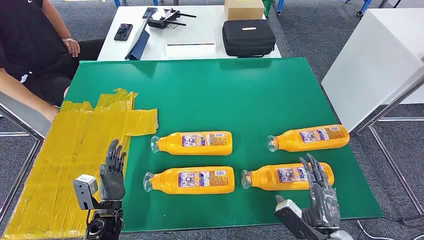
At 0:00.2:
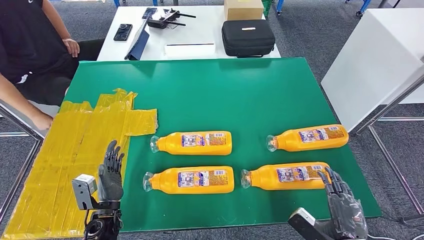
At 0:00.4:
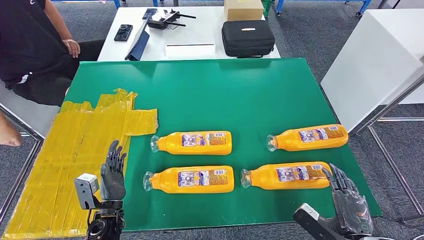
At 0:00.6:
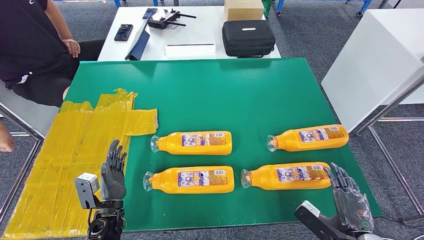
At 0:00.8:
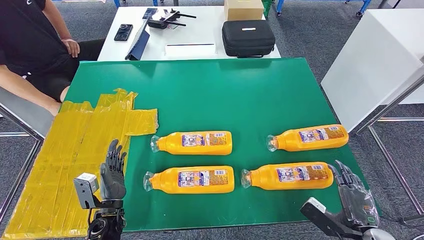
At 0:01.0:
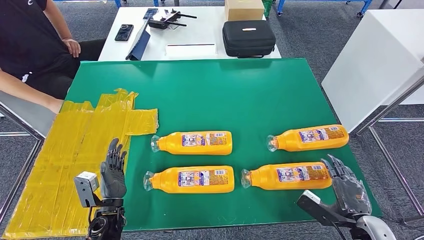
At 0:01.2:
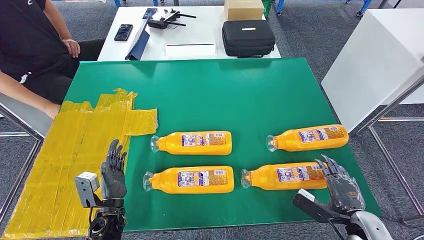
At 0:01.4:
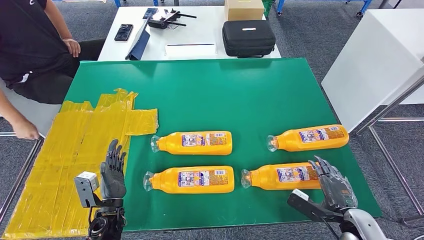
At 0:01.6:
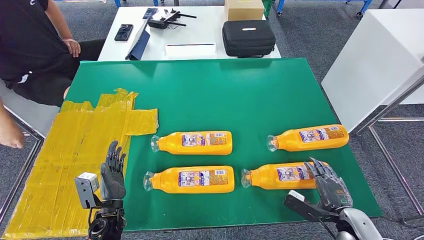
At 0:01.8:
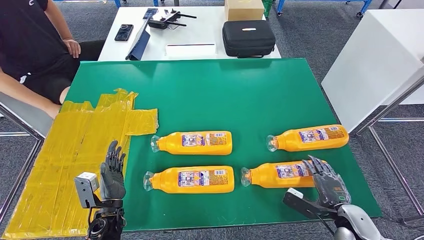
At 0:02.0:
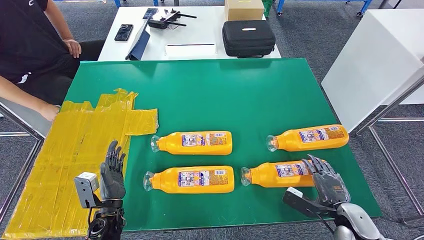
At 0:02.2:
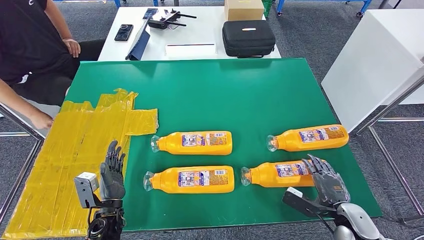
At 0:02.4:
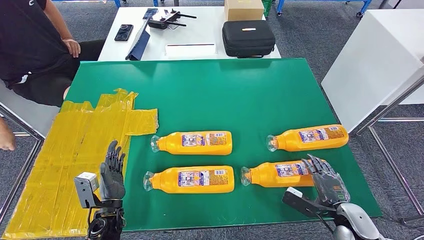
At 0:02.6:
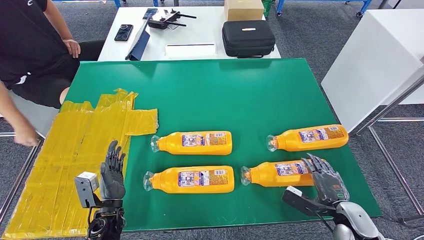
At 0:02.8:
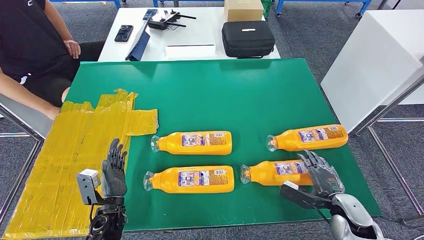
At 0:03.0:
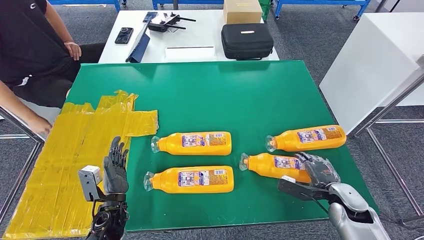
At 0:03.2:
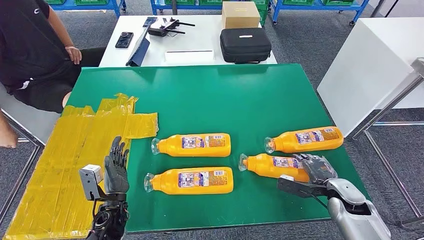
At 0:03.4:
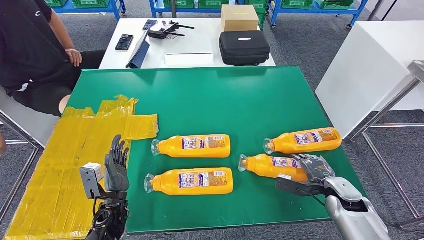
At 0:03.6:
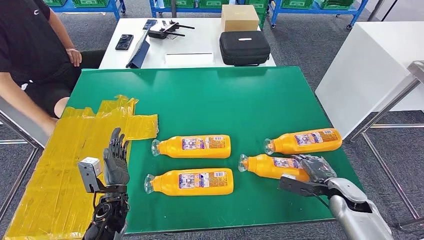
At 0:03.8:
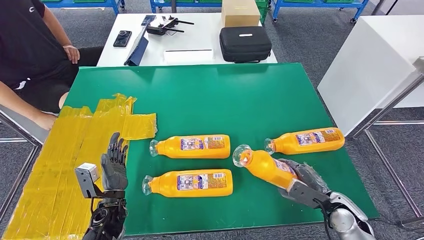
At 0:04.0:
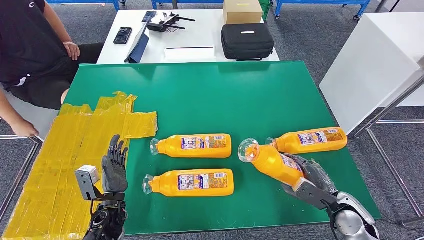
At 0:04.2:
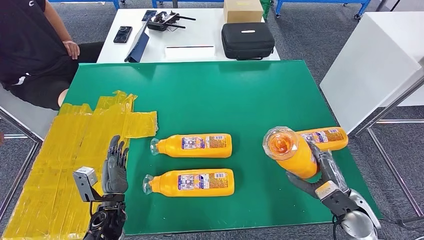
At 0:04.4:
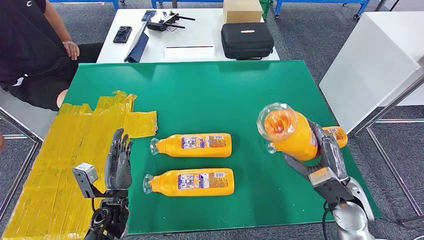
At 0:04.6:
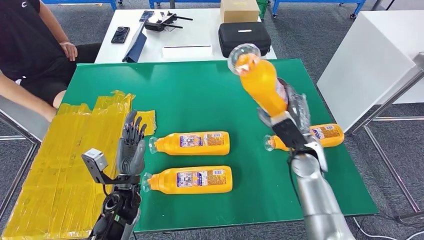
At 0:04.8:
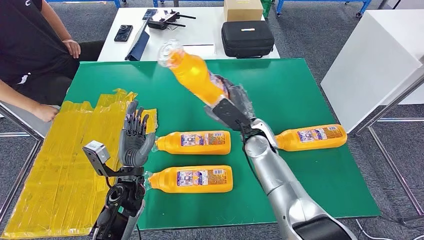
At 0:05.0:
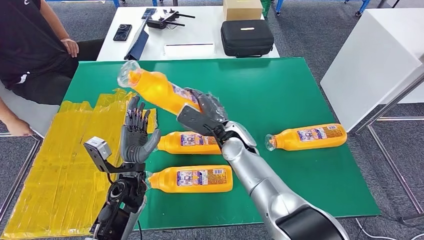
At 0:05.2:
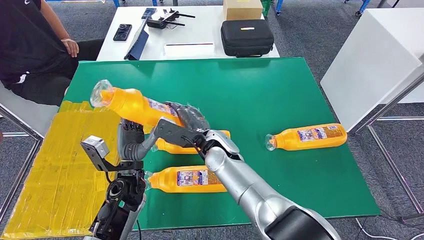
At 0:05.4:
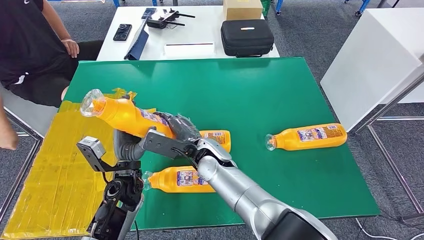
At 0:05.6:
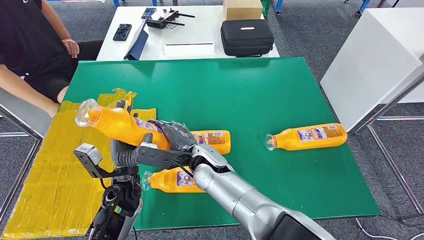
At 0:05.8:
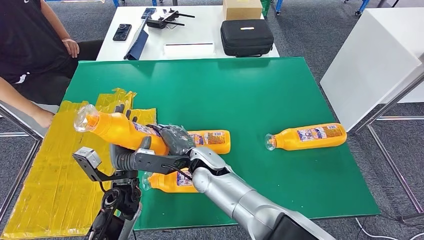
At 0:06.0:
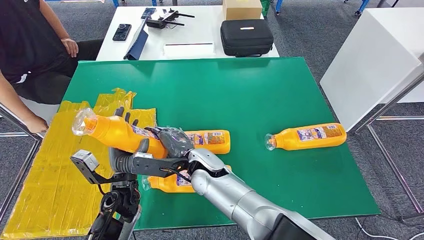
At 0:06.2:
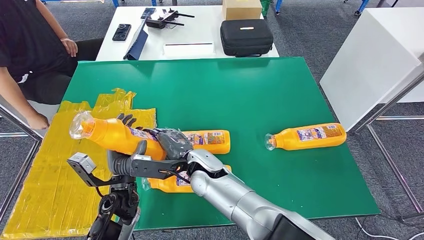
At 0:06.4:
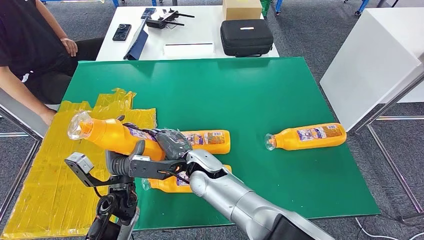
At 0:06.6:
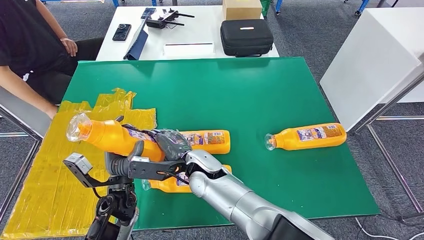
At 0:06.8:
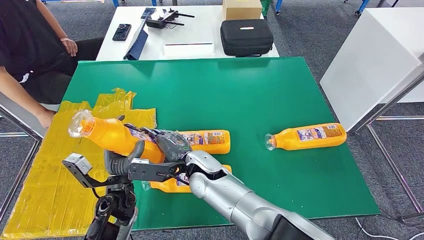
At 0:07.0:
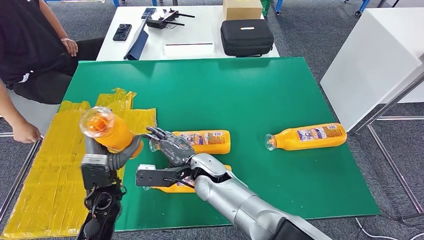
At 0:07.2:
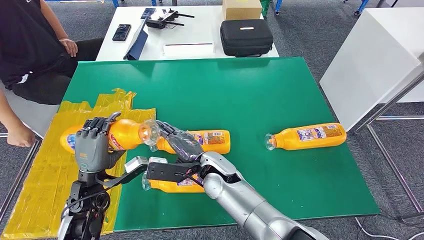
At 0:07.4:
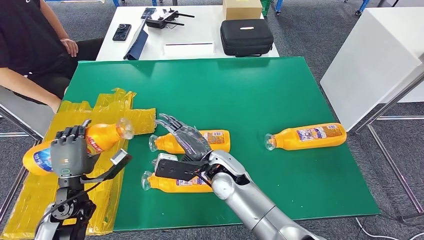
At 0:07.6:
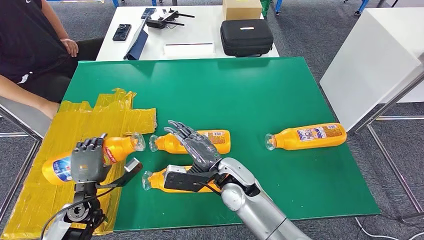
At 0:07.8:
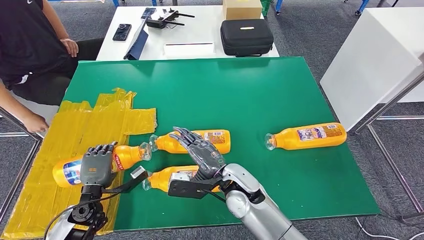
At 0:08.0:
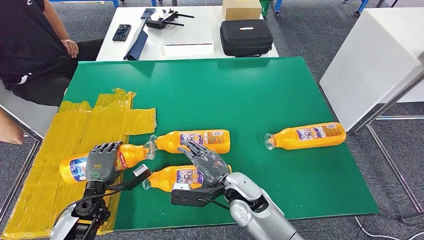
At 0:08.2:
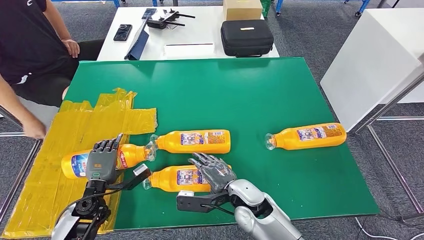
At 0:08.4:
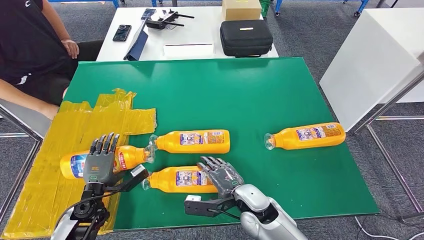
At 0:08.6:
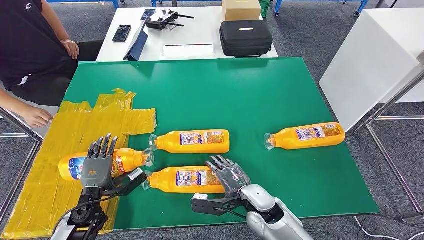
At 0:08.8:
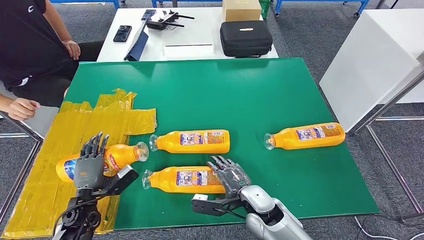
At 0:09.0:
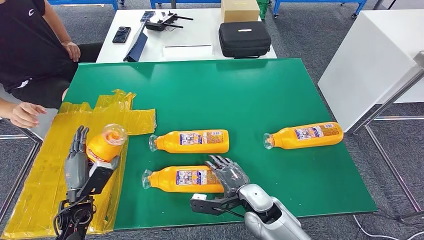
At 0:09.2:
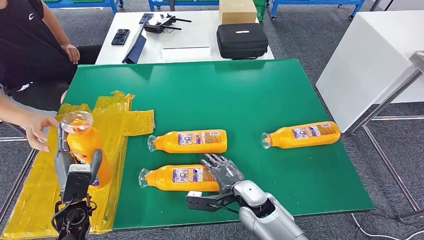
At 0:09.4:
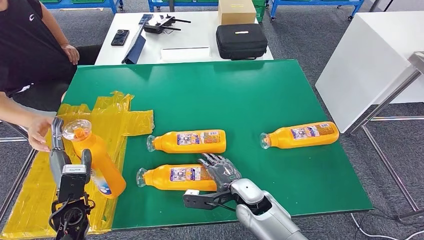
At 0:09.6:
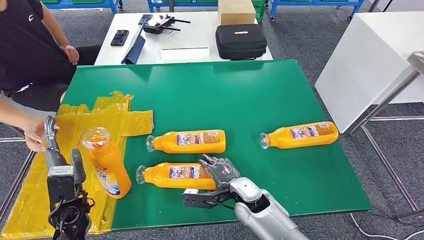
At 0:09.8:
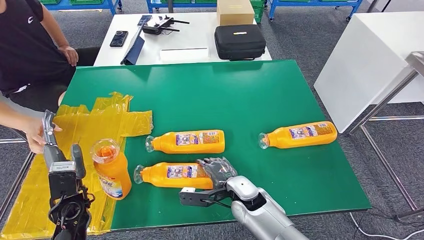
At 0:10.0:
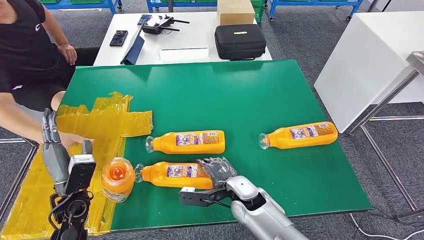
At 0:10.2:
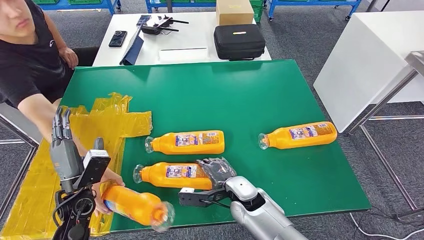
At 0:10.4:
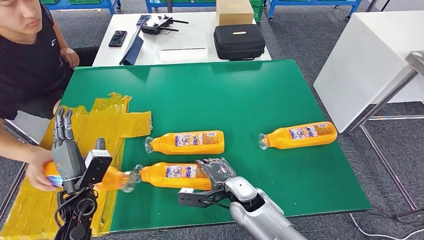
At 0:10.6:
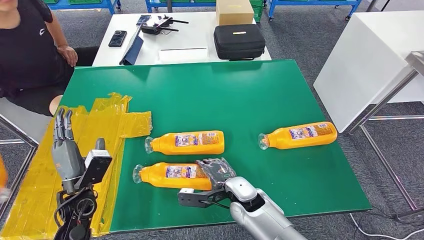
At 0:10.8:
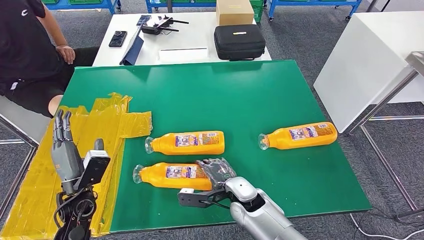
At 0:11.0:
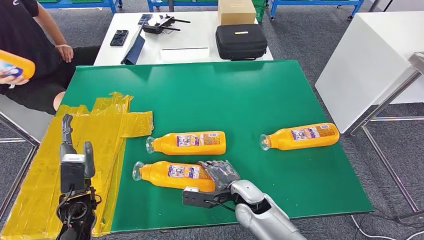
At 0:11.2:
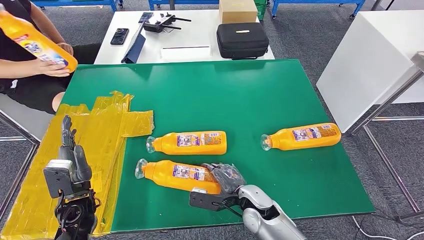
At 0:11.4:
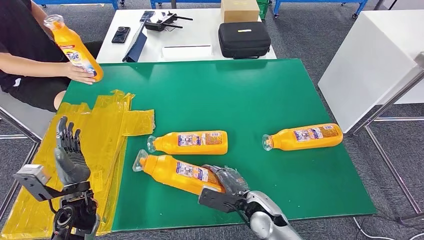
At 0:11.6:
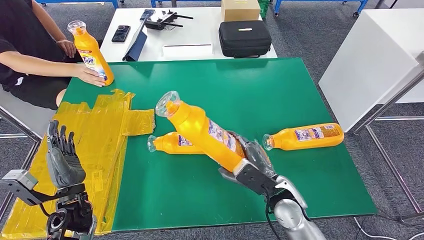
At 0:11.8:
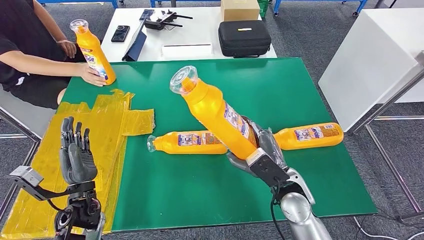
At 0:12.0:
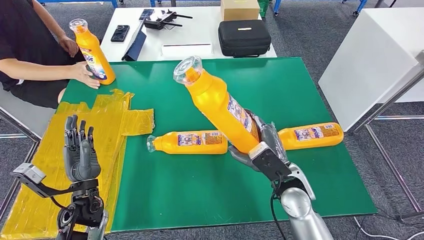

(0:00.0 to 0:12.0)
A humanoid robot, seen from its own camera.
Step, 0:00.0 - 0:05.0: Take the fast-moving consumer goods bottle from the table.
Step, 0:05.2 - 0:11.0: Flip the fast-moving consumer goods bottle to the front side.
0:01.6 - 0:03.0: The right hand goes some 5 cm forward.
0:03.0 - 0:04.4: The right hand heads upward and to the left, covering roughly 15 cm.
0:06.0 - 0:07.6: The right hand shifts roughly 5 cm to the right, while the left hand shifts approximately 10 cm to the left.

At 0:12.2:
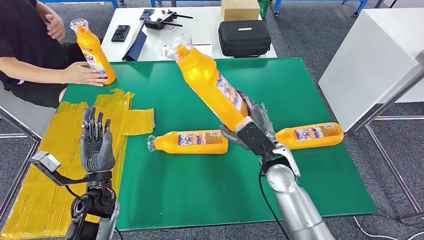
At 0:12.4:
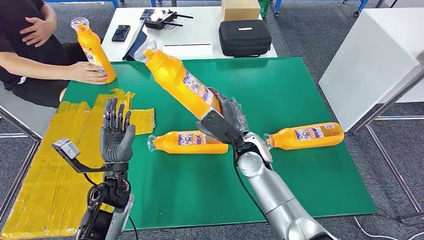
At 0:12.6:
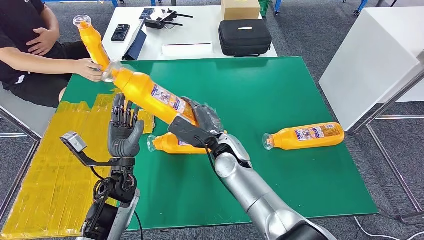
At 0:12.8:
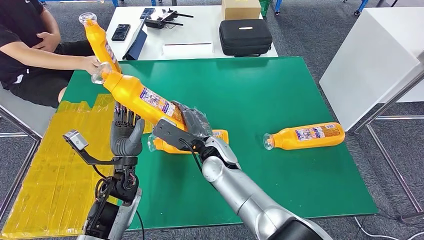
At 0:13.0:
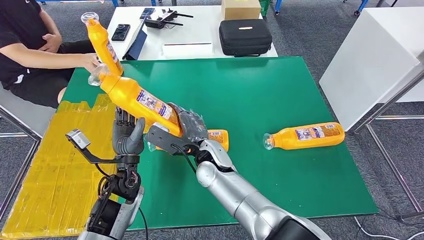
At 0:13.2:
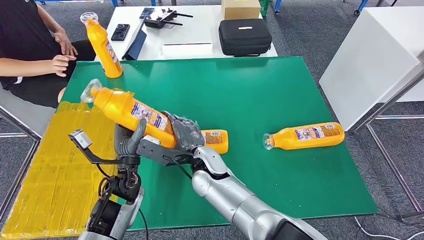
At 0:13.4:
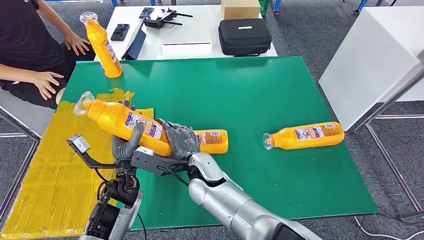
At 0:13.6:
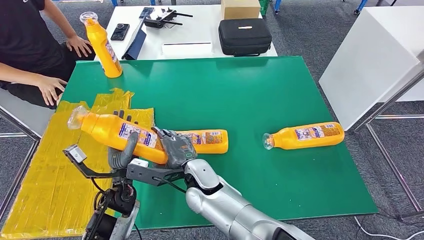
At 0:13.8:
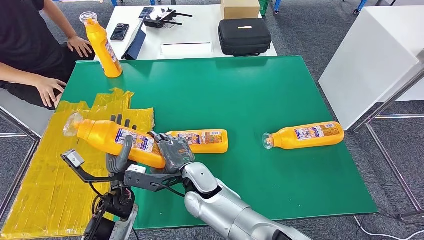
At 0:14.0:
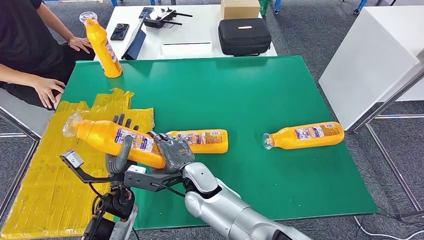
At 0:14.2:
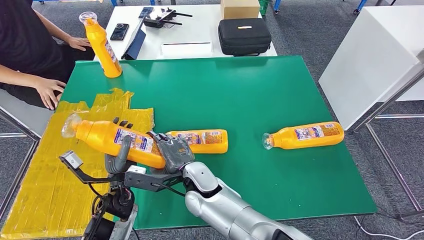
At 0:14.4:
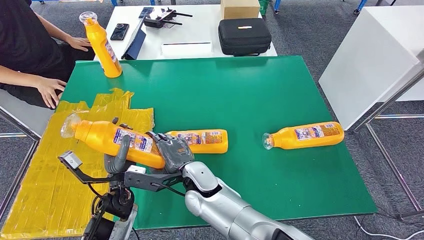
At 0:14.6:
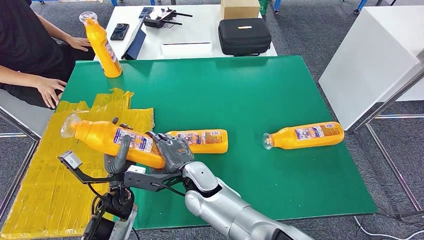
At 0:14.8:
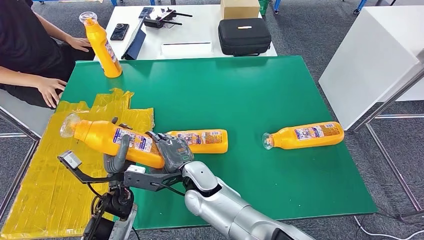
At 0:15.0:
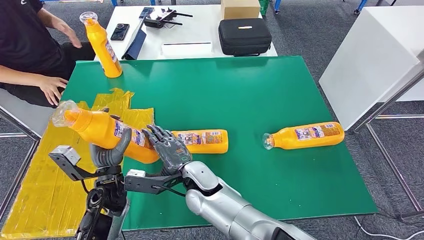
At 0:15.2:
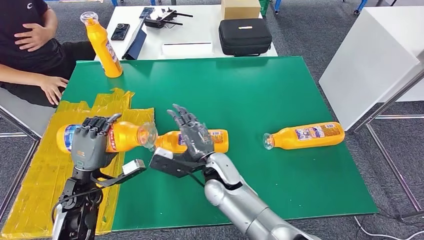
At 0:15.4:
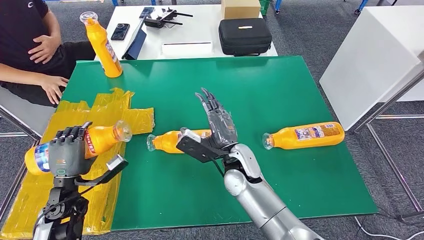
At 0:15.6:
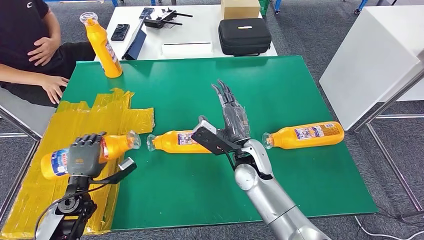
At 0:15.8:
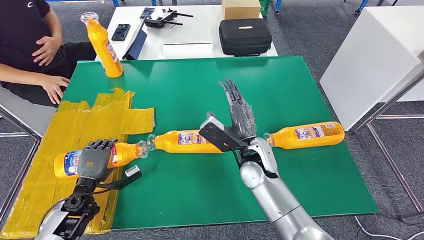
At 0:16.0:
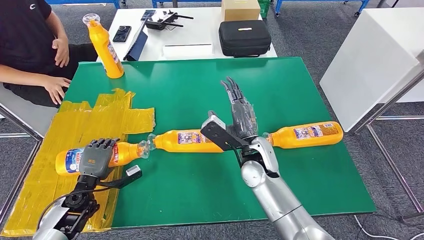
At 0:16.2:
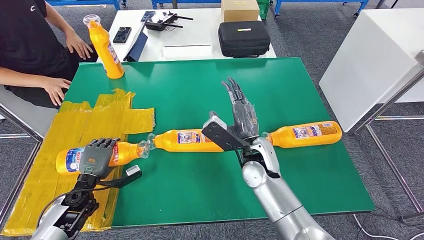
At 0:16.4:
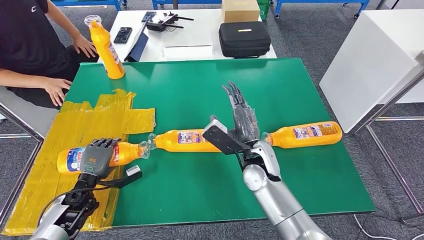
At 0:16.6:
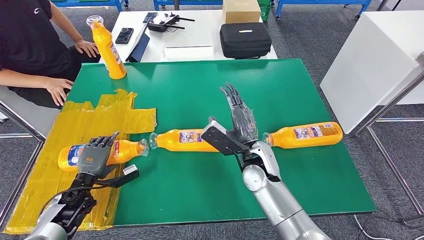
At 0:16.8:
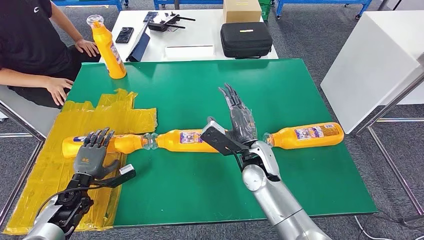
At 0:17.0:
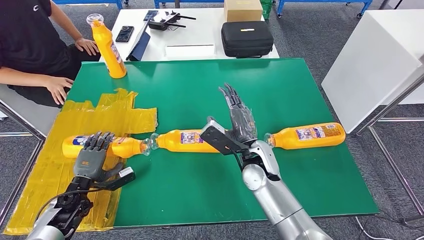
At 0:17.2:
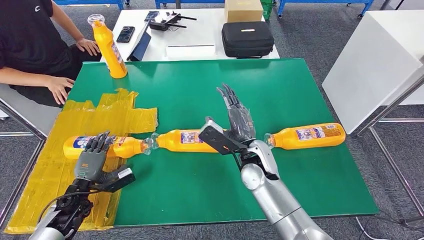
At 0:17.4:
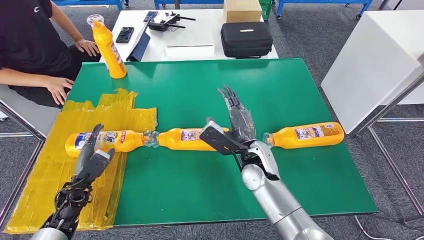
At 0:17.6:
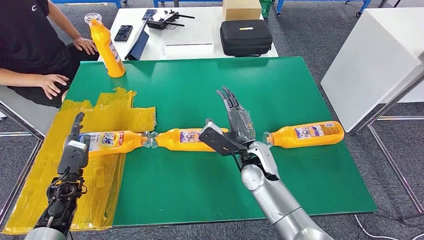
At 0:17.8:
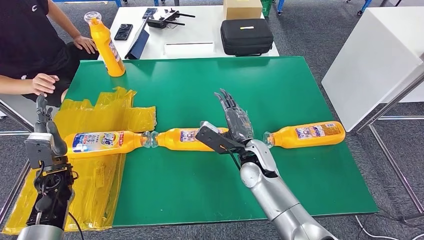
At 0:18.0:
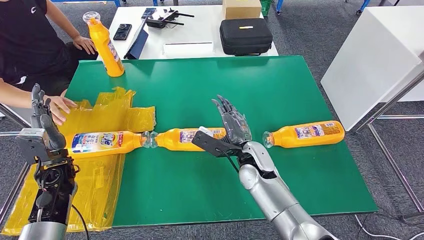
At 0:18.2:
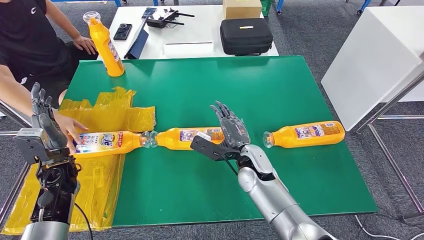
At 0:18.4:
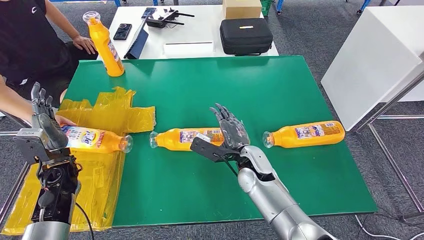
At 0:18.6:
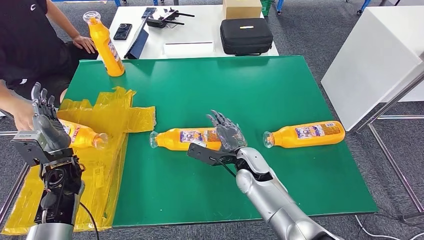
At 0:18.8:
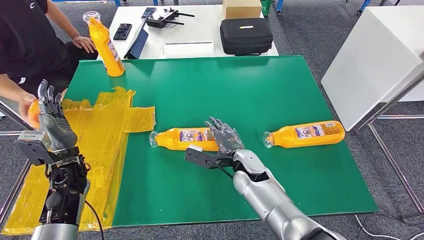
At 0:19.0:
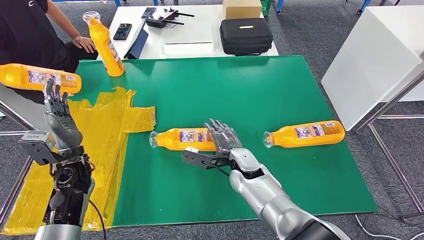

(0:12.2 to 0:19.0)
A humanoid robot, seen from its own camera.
Step, 0:12.2 - 0:14.8: Pick up the fast-moving consumer goods bottle from the table.
Step, 0:15.0 - 0:19.0: Flip the fast-moving consumer goods bottle to the front side.
0:13.6 - 0:15.0: Both hands stay put.
